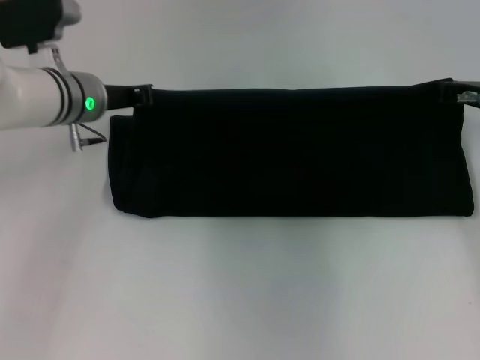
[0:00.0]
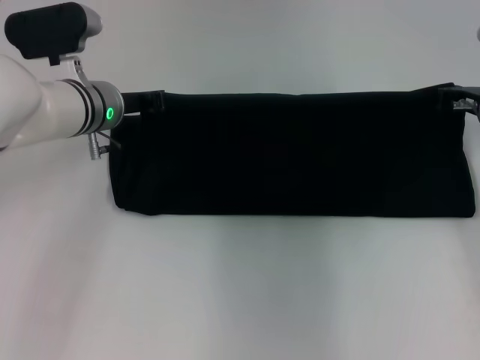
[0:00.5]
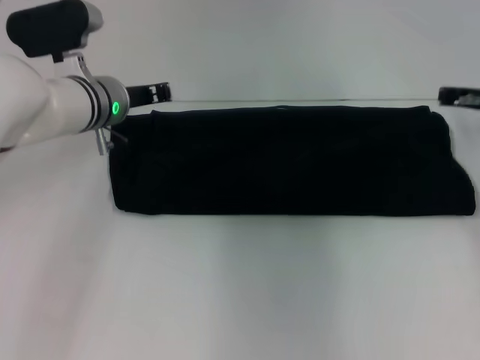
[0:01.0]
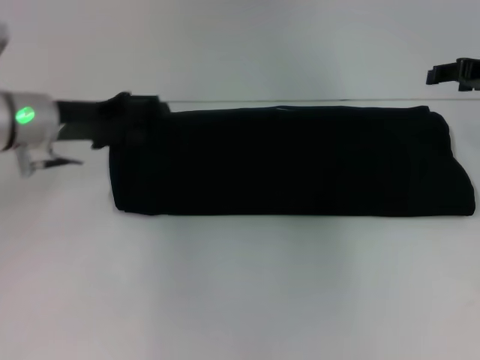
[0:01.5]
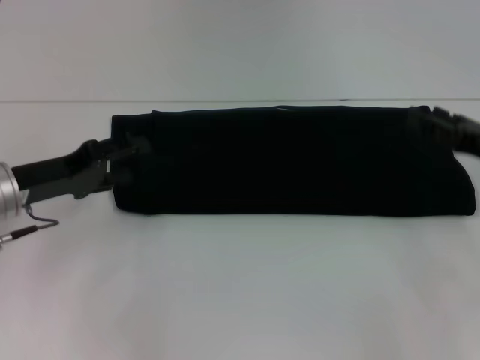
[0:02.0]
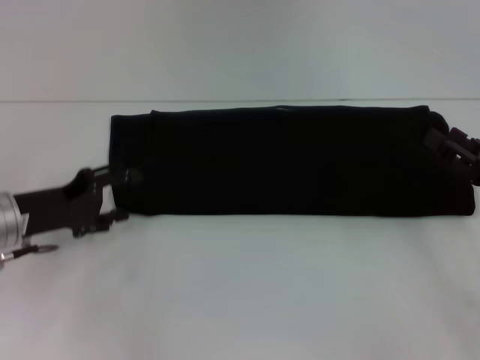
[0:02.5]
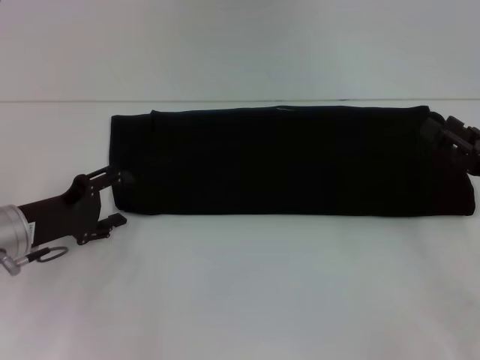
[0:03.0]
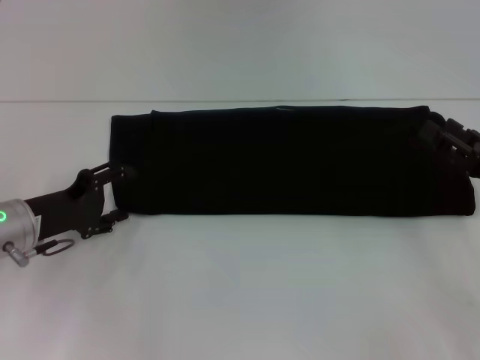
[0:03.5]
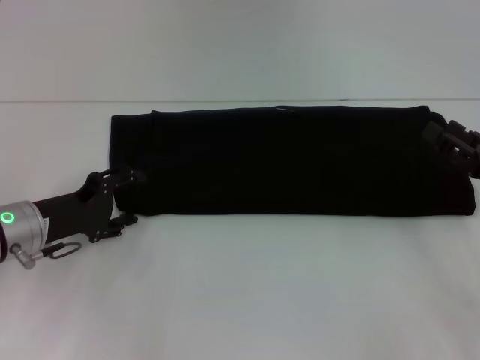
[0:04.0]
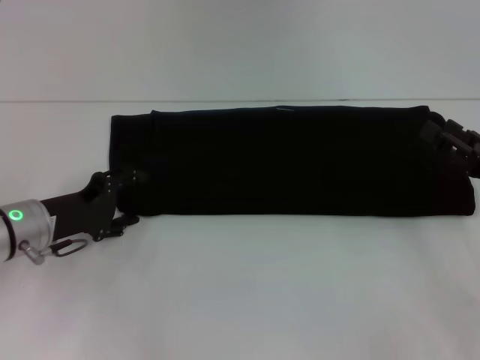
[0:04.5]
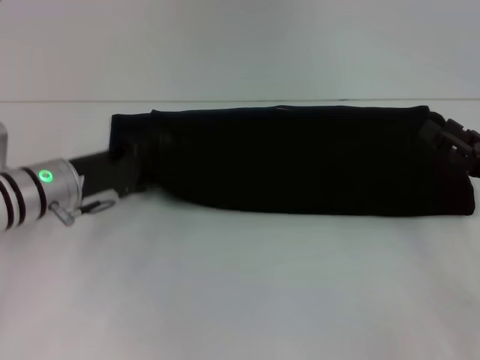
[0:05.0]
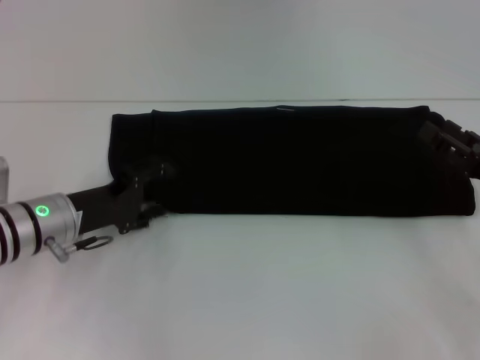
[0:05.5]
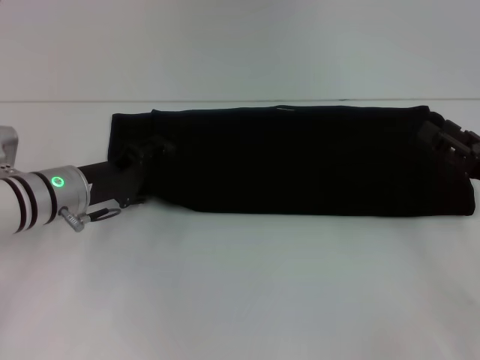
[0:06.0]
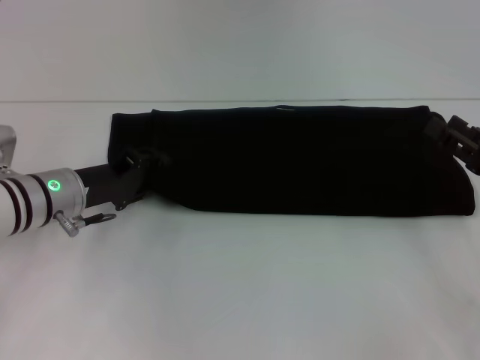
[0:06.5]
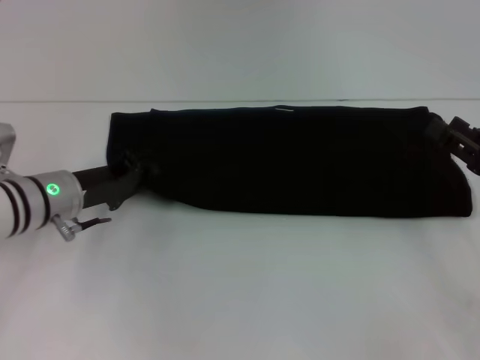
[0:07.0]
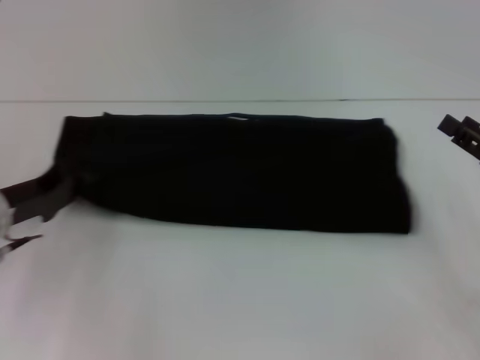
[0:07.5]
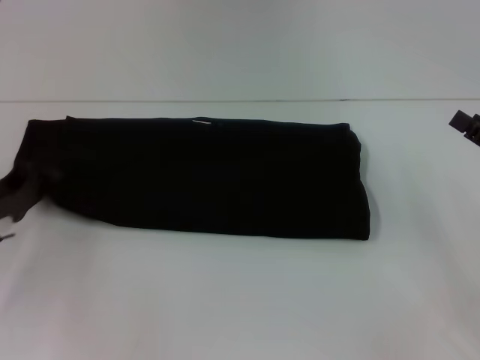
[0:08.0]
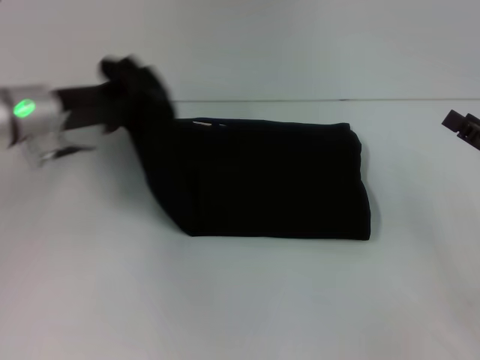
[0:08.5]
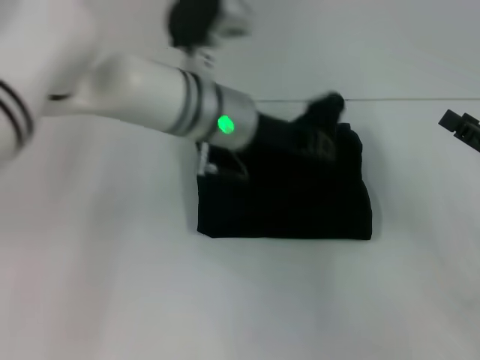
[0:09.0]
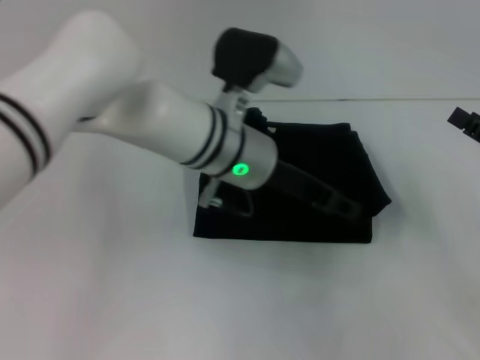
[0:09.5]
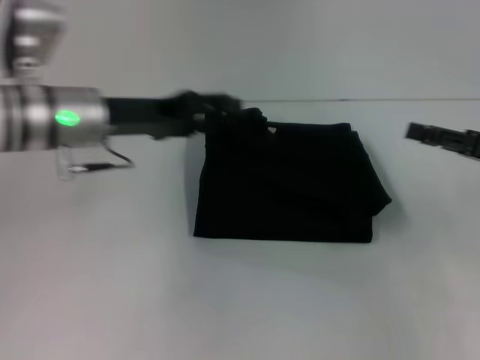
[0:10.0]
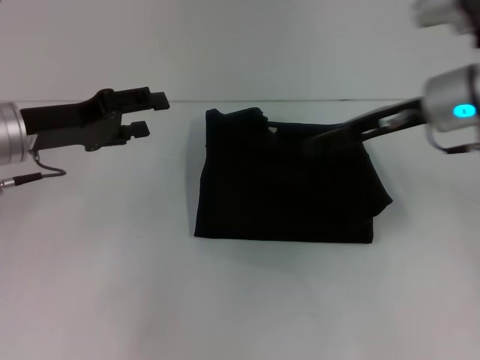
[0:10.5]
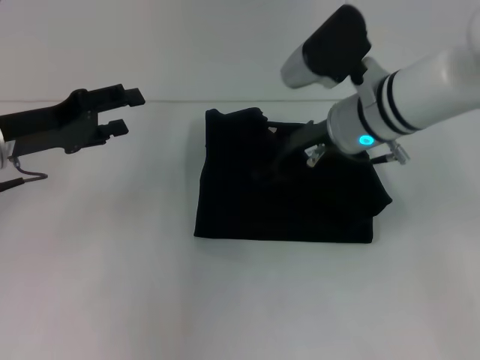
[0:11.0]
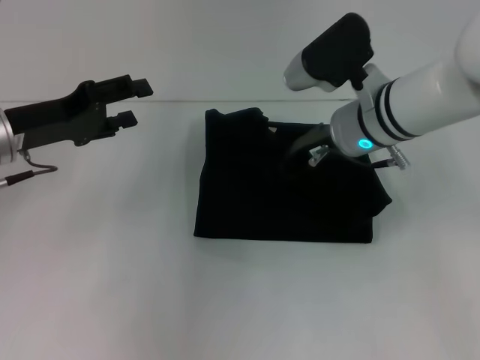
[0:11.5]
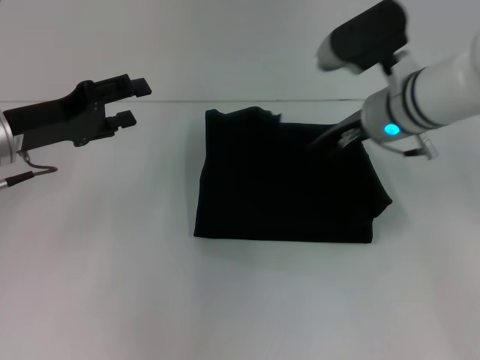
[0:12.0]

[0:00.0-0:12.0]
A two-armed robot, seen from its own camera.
Step, 0:00.0 to 0:09.5: Fold the clothes with your left hand.
0:00.0 to 0:02.0: The right gripper heads backward, covering some 10 cm, and opens. The left gripper goes about 15 cm backward and to the left, and opens.
0:04.0 to 0:06.0: The left gripper shifts by roughly 5 cm.
0:06.0 to 0:08.0: The left gripper is displaced to the left by approximately 10 cm, and closes up.
0:08.0 to 0:10.0: The left gripper shifts approximately 20 cm to the right, upward and forward, and opens up. Meanwhile the right gripper ends up some 5 cm from where it was.
0:10.0 to 0:12.0: The right gripper heads to the left and forward, covering some 20 cm; the left gripper moves to the left, roughly 10 cm.

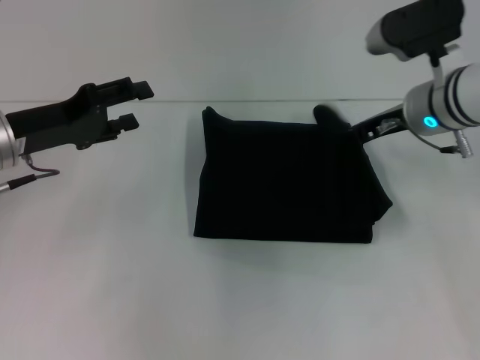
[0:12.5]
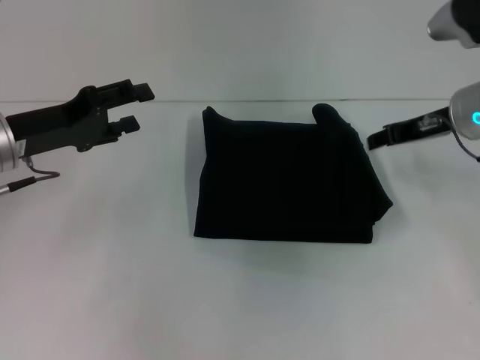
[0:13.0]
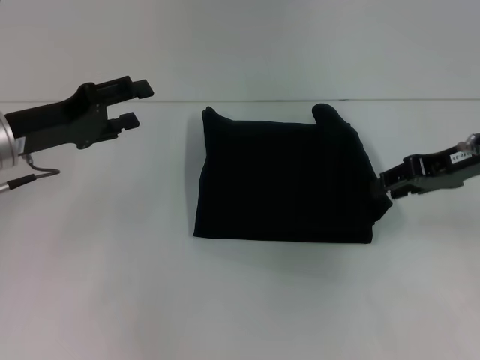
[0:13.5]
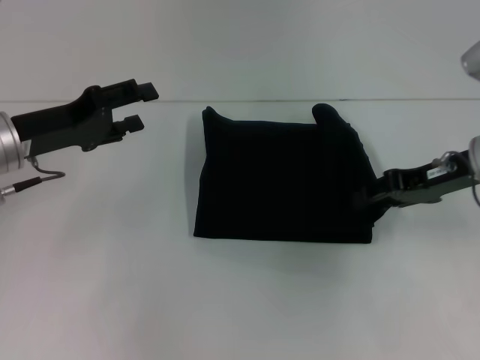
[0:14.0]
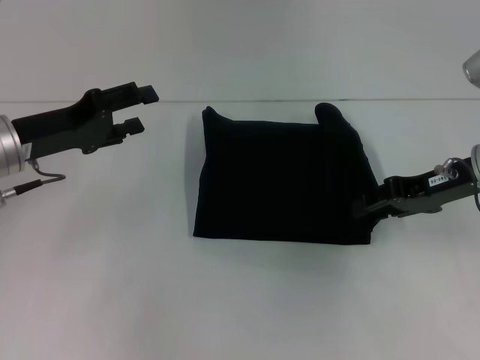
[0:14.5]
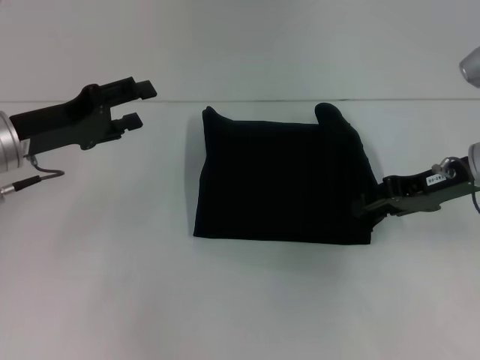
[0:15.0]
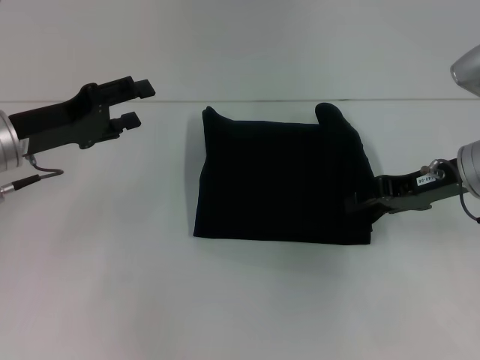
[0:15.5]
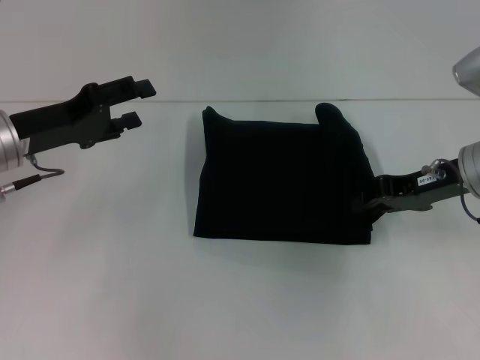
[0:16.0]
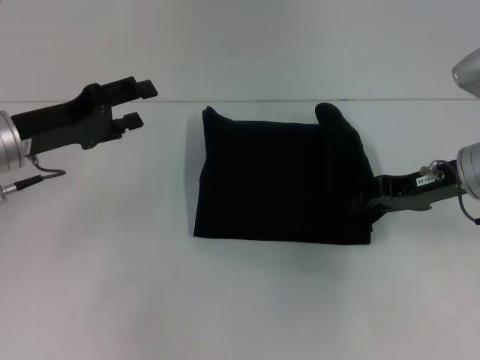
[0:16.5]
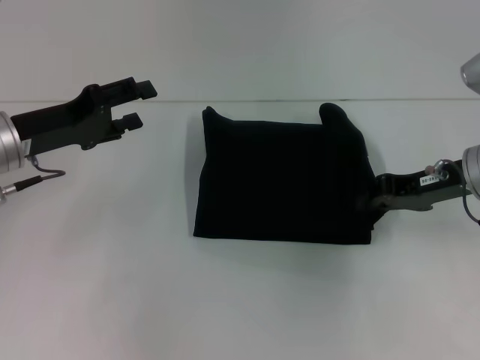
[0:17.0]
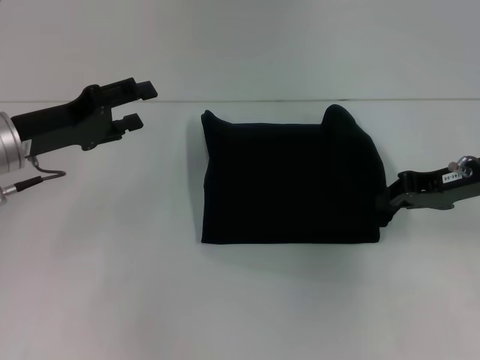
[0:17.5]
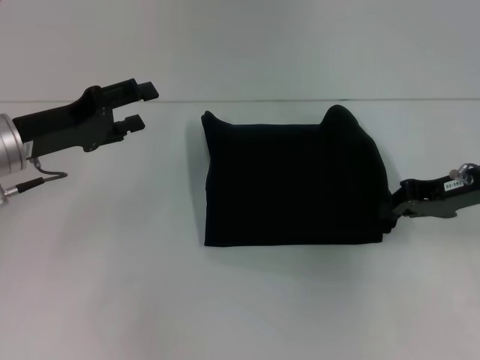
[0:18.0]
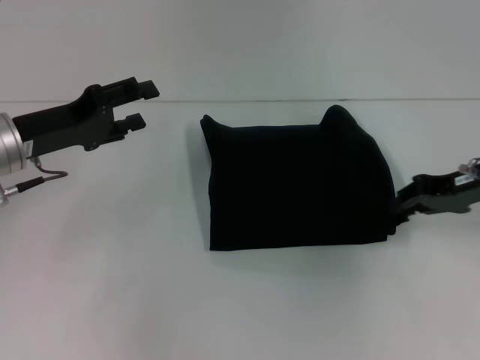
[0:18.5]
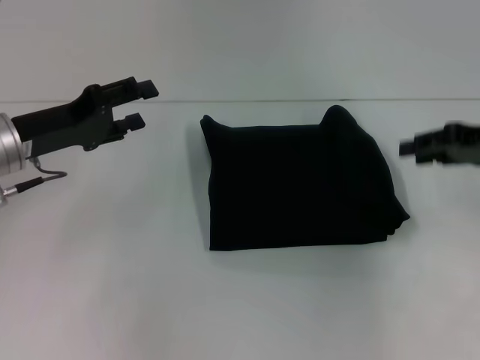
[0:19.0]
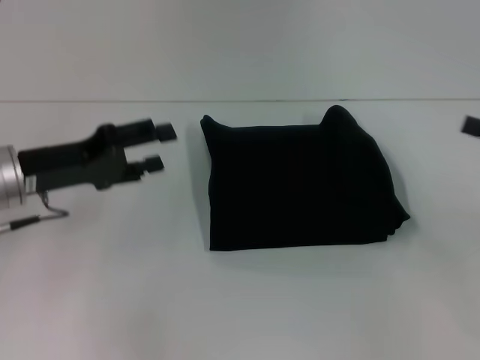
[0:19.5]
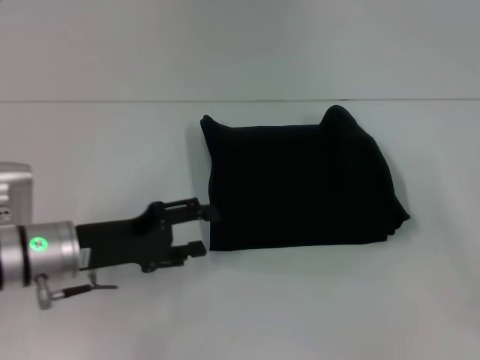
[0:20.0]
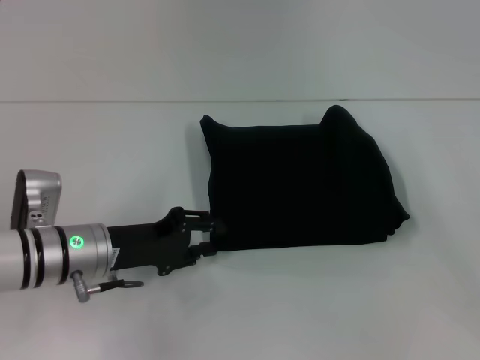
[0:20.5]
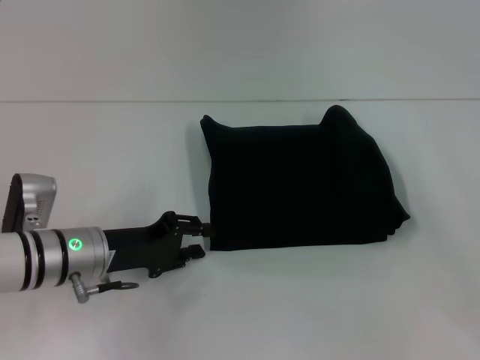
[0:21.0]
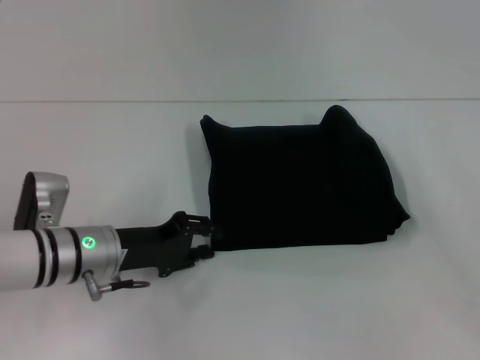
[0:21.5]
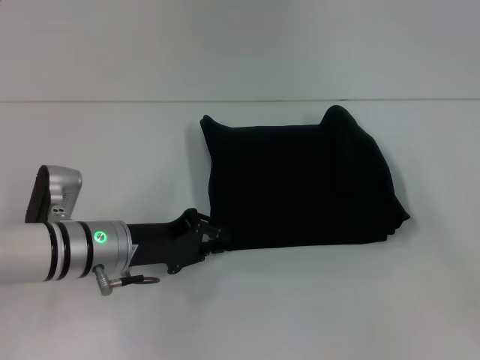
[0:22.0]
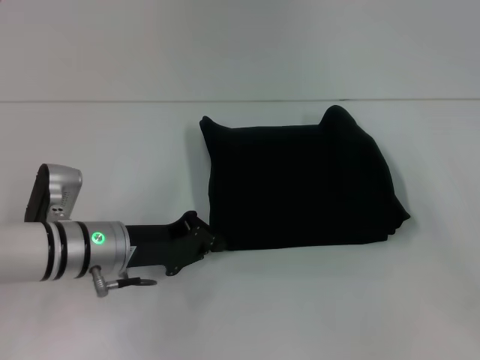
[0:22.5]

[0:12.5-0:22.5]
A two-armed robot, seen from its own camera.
0:12.5 to 0:14.5: The right gripper is displaced to the right and backward by roughly 10 cm.
0:14.5 to 0:18.5: There are only small adjustments of the grippers.
0:18.5 to 0:20.5: The right gripper is displaced backward and to the right by about 15 cm, and opens up, while the left gripper moves downward and to the right, about 10 cm.
0:20.5 to 0:22.5: The left gripper closes.

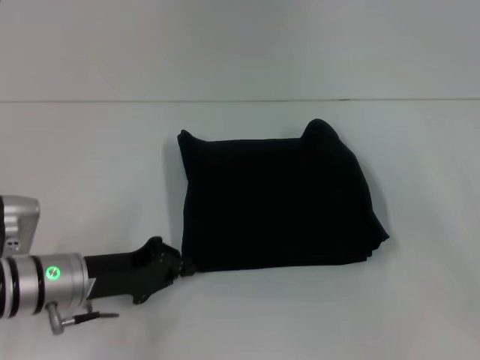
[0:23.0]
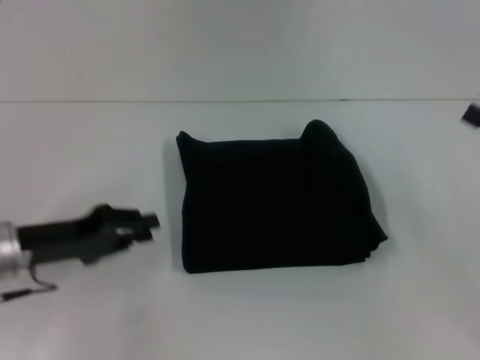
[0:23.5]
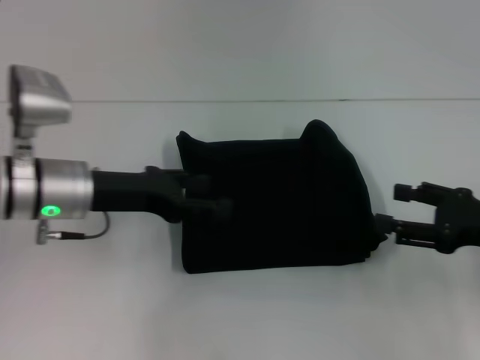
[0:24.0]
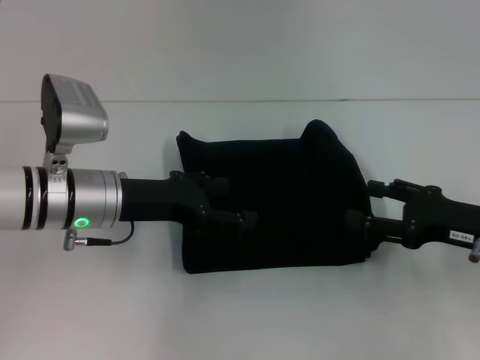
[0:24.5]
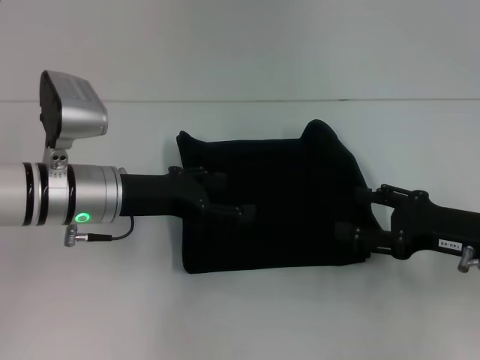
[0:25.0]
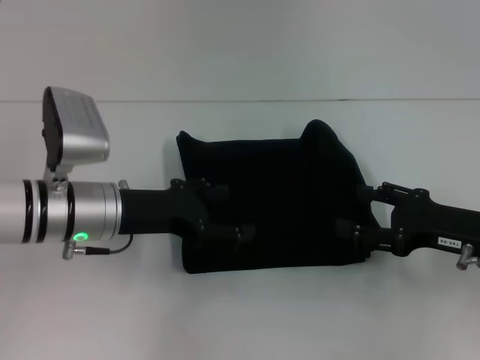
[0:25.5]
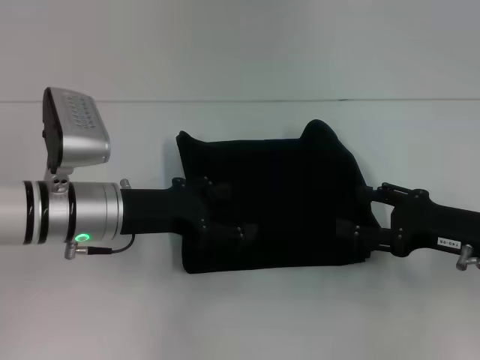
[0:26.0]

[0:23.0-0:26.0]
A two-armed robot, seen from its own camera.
0:23.0 to 0:24.5: The right gripper heads to the left, covering roughly 10 cm. The left gripper is displaced upward and forward by roughly 10 cm, and opens.
0:24.5 to 0:26.0: The grippers make only small movements.
